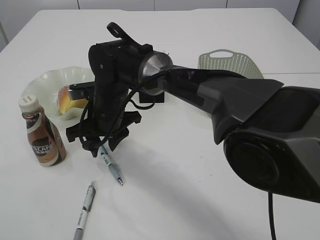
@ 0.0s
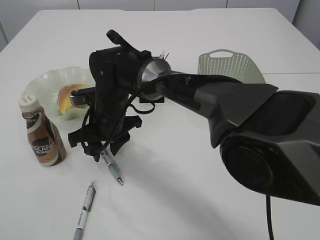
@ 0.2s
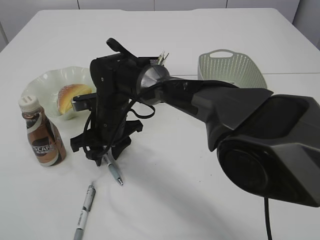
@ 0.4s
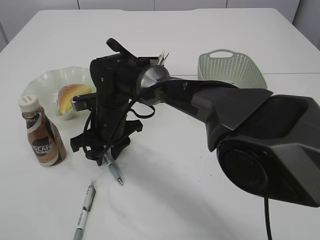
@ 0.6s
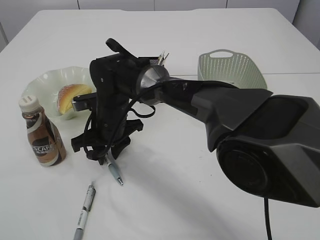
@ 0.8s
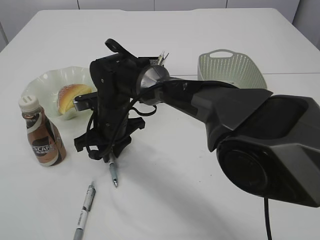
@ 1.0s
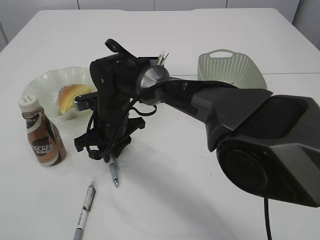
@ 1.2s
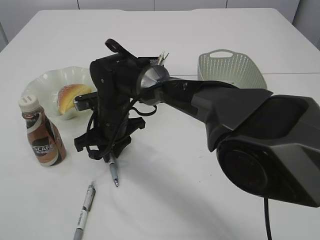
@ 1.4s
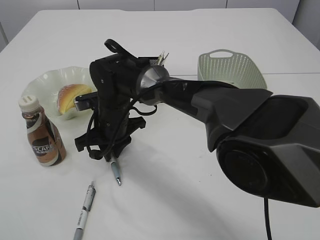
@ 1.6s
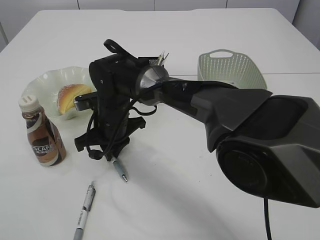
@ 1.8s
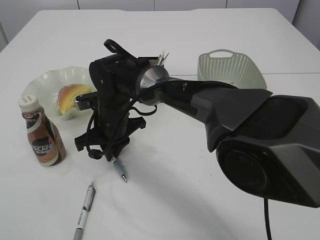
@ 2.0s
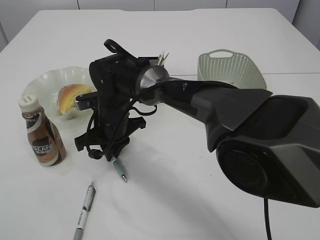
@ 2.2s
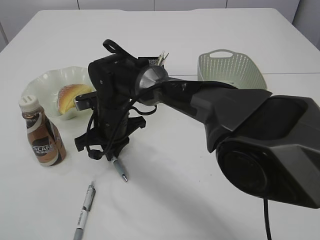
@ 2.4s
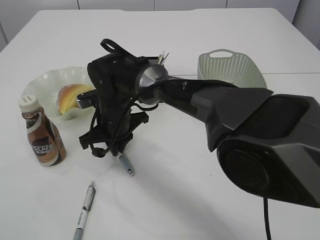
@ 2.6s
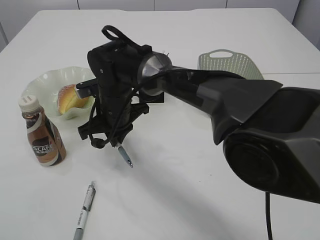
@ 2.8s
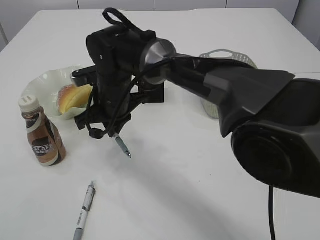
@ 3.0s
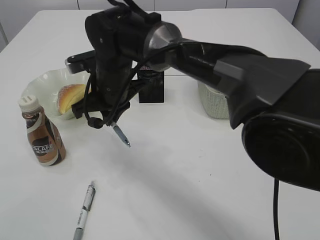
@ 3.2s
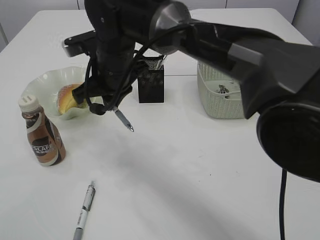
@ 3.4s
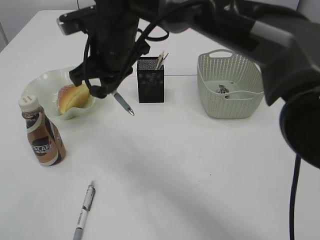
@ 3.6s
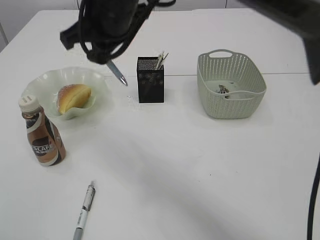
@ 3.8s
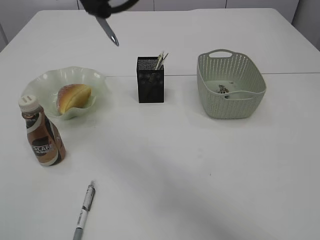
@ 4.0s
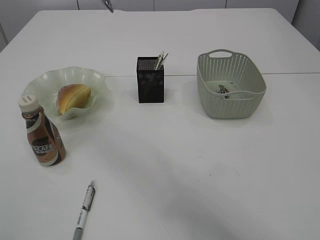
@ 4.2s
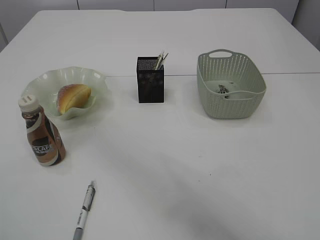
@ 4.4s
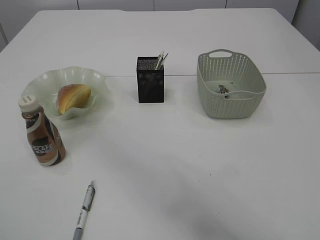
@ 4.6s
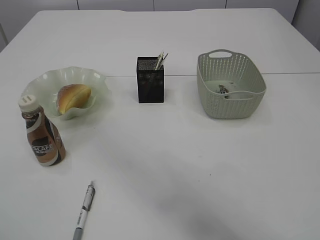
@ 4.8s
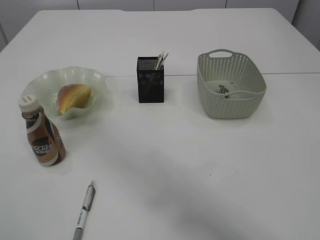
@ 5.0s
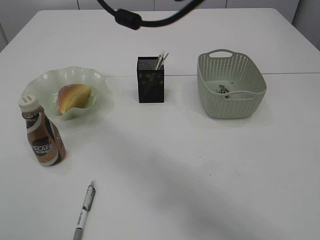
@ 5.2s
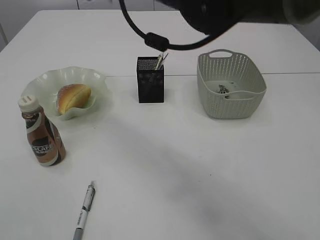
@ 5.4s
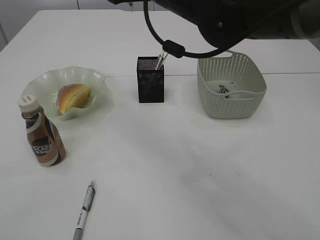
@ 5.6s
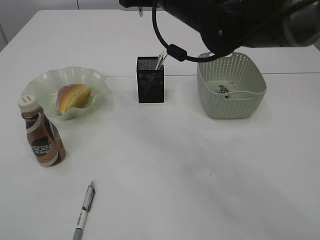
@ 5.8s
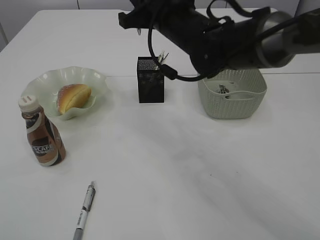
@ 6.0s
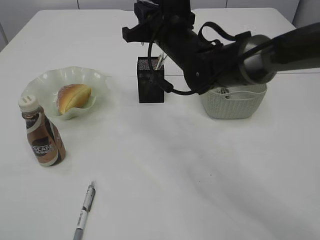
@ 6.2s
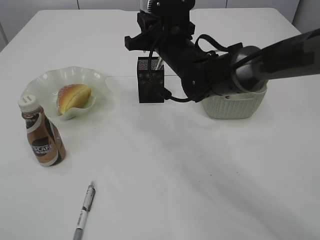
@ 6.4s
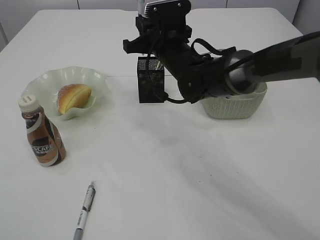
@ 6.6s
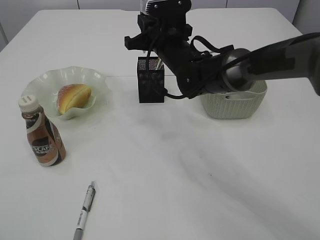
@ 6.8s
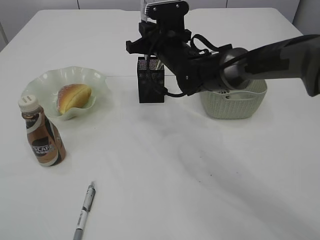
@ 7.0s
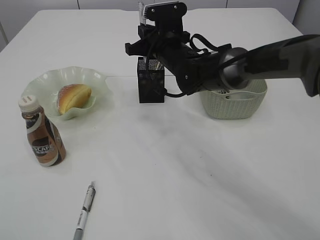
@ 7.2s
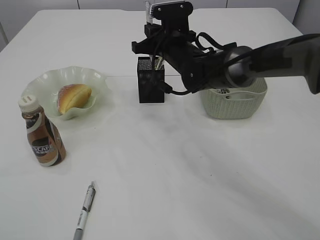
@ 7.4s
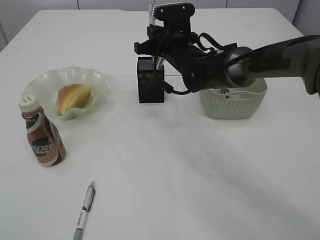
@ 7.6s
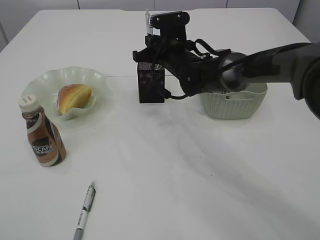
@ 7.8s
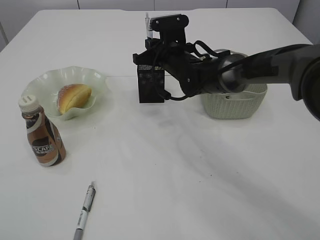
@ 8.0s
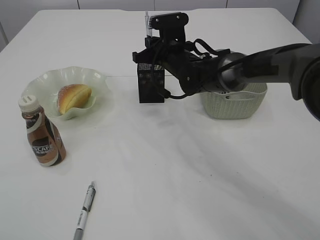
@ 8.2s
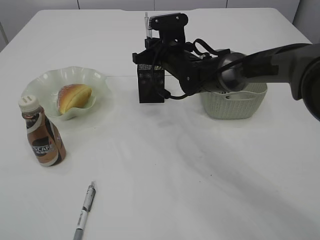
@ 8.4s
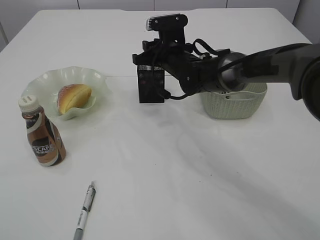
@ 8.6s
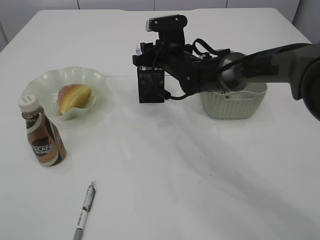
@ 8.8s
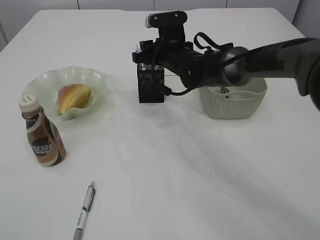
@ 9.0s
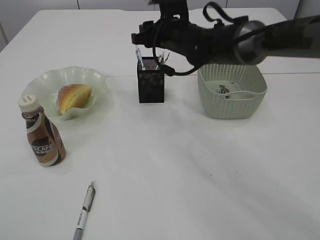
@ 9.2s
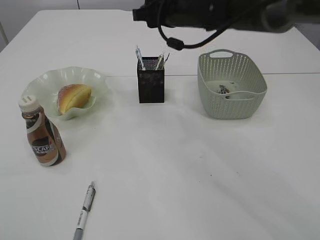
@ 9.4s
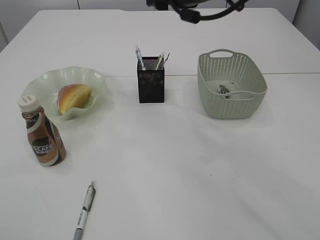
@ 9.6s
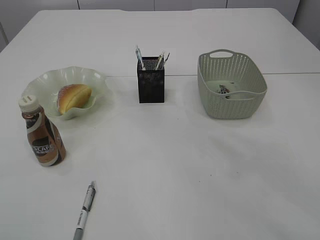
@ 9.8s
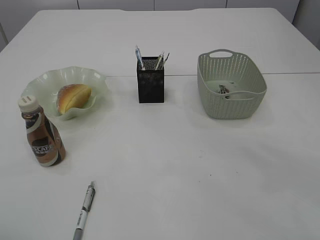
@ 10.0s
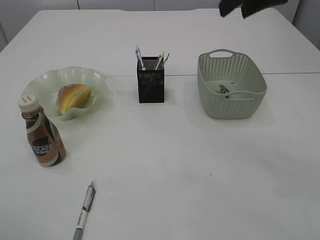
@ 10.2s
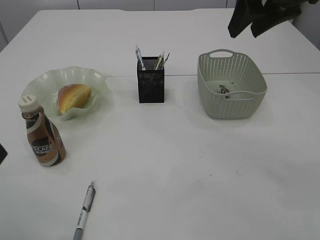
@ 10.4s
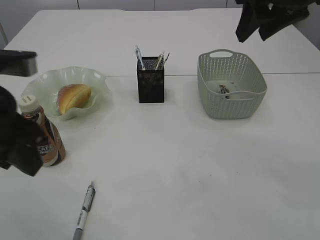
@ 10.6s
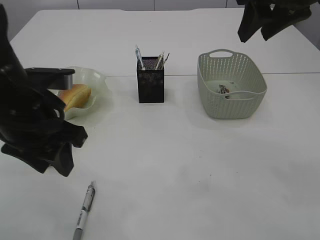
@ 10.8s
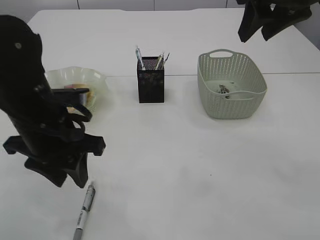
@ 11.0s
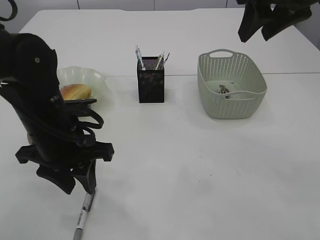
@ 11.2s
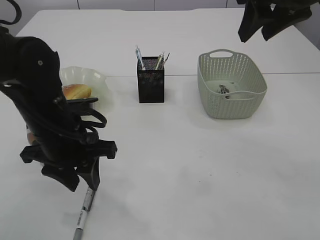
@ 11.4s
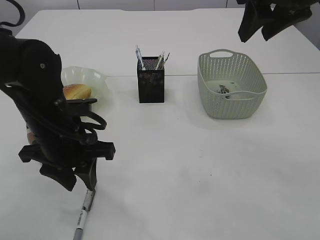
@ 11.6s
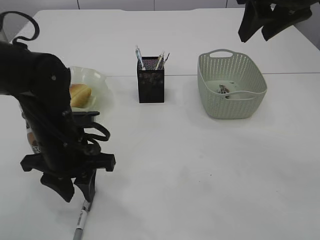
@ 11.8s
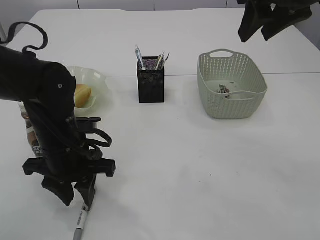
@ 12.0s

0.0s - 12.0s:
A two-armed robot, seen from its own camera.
Step, 0.0s - 3.0s: Pick up the pen with right arm.
Step, 3.2s - 9.2s: Place the pen into the pen holder.
0.0s - 1.6s: The grippers make only small movements.
3.0s - 4.4s: The right gripper heads upward, covering some 25 cm.
4.4s - 6.0s: The right gripper goes about 20 cm downward, forward and to the right.
6.0s - 7.6s: The right gripper heads downward and forward, covering approximately 10 cm.
7.6s - 9.0s: The right gripper opens its fingers.
9.0s - 10.4s: The right gripper goes about 30 cm upward, backward and to the right. Meanwhile the left gripper shifts roughly 10 cm forward and to the right.
10.4s - 12.0s: The left gripper shifts about 20 cm downward, forward and to the right.

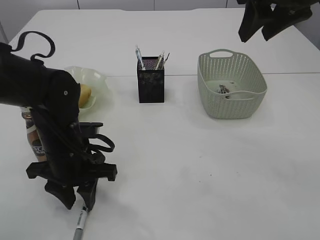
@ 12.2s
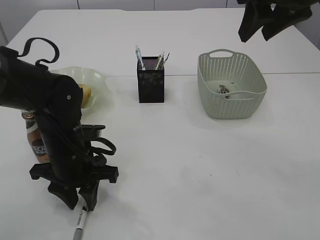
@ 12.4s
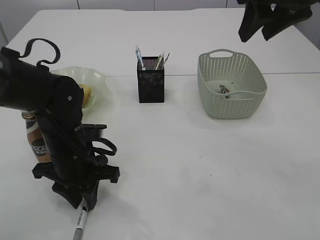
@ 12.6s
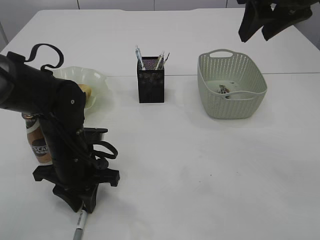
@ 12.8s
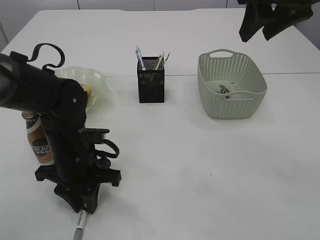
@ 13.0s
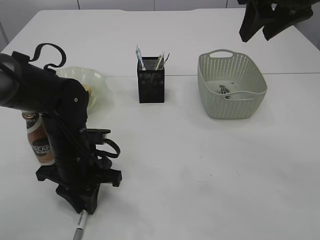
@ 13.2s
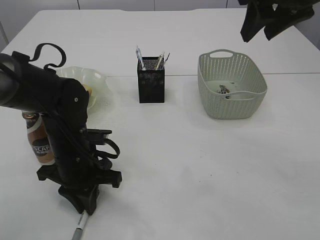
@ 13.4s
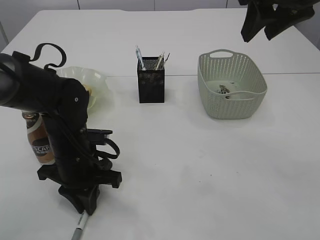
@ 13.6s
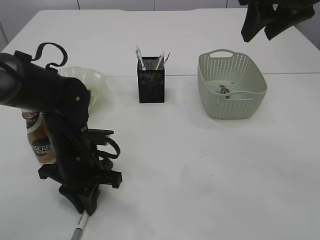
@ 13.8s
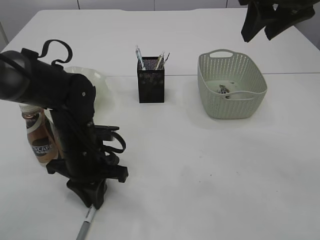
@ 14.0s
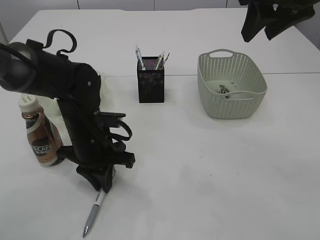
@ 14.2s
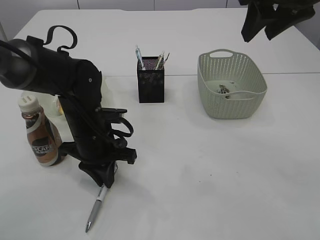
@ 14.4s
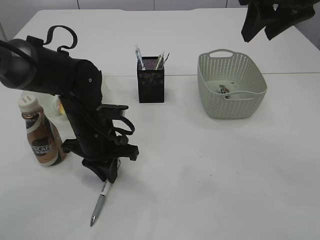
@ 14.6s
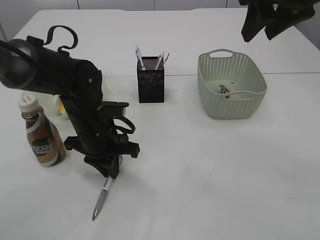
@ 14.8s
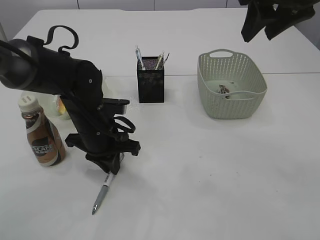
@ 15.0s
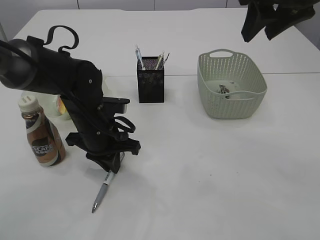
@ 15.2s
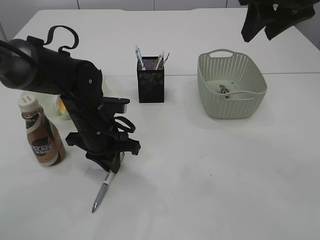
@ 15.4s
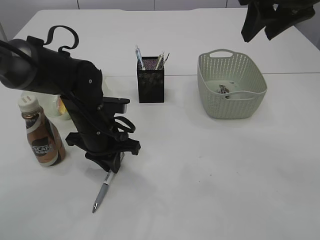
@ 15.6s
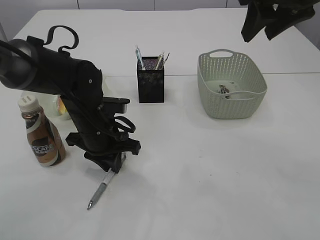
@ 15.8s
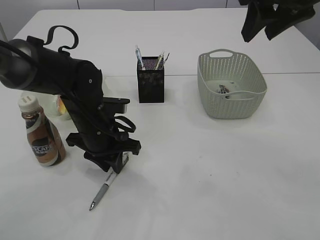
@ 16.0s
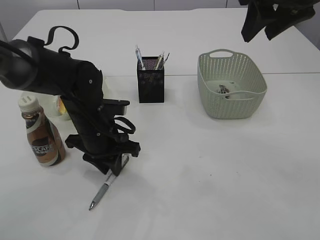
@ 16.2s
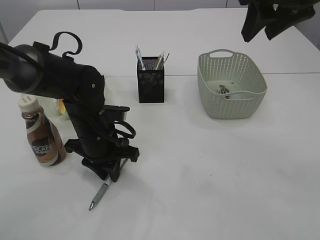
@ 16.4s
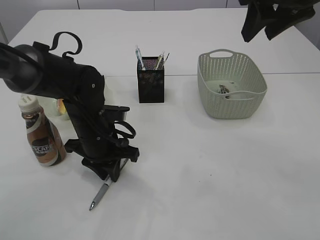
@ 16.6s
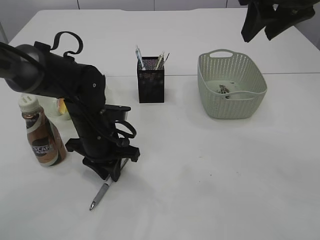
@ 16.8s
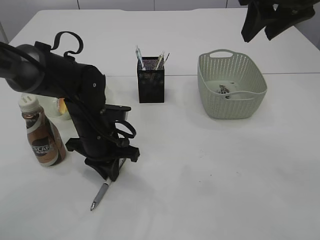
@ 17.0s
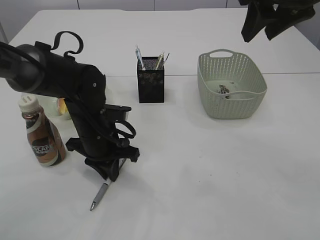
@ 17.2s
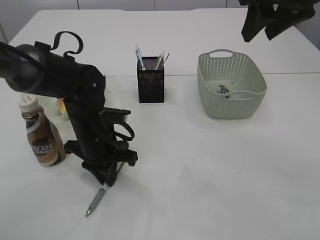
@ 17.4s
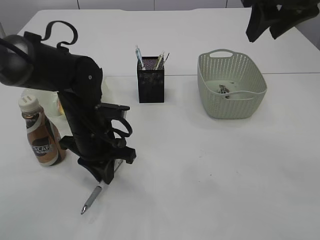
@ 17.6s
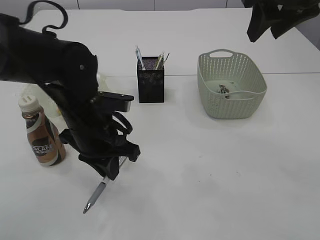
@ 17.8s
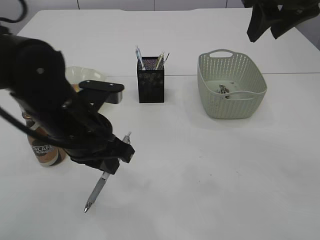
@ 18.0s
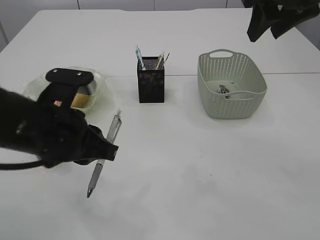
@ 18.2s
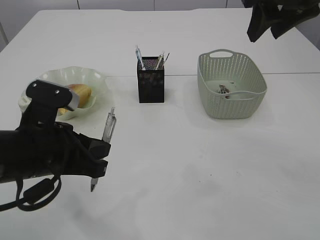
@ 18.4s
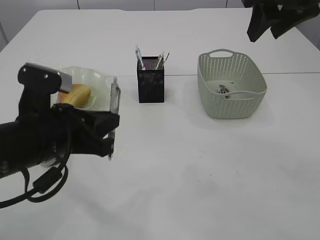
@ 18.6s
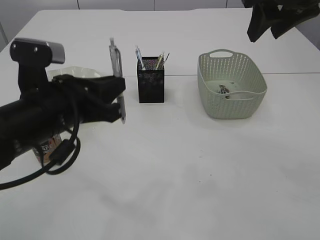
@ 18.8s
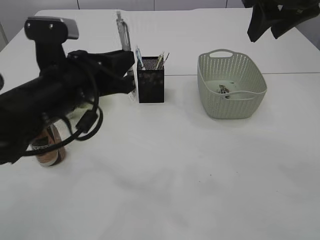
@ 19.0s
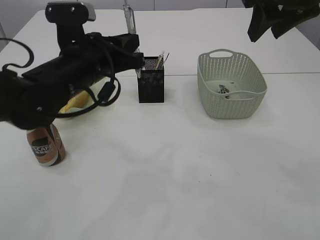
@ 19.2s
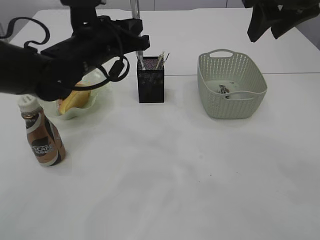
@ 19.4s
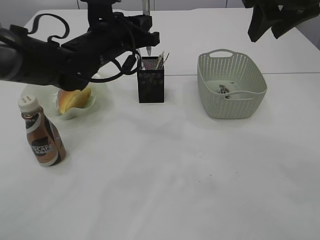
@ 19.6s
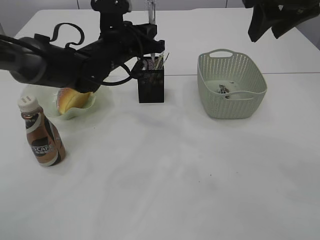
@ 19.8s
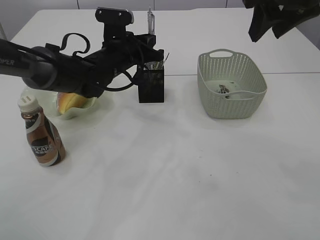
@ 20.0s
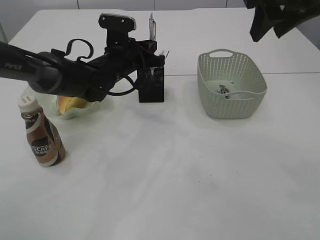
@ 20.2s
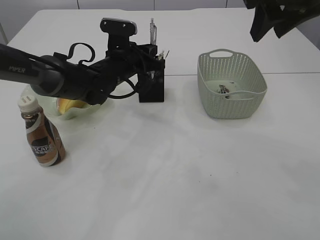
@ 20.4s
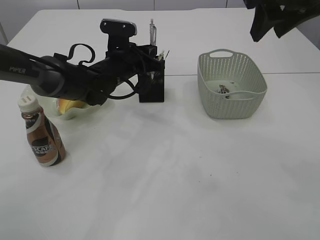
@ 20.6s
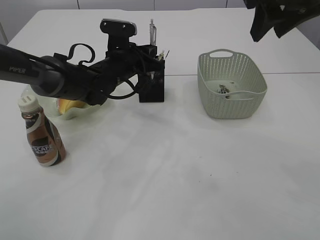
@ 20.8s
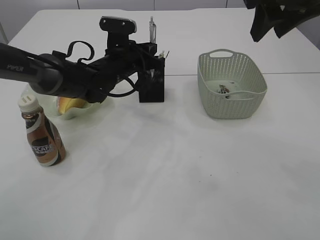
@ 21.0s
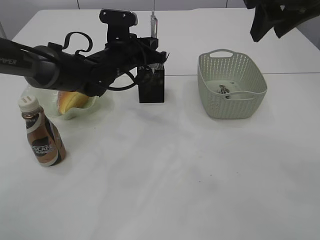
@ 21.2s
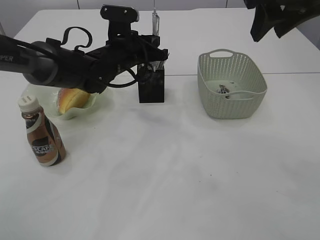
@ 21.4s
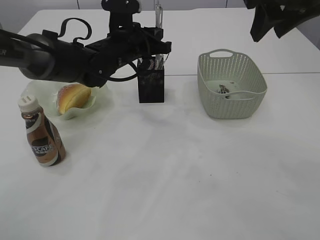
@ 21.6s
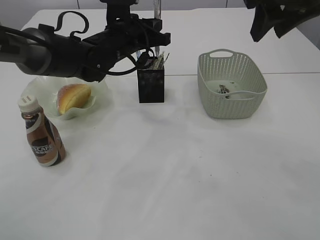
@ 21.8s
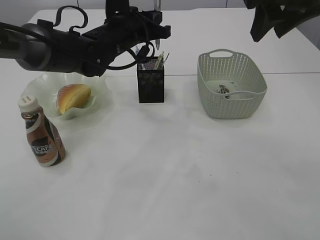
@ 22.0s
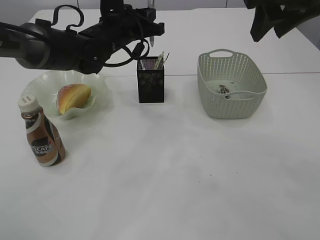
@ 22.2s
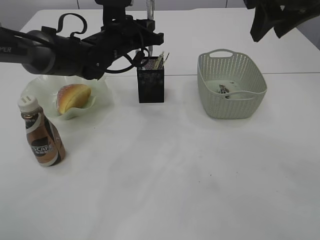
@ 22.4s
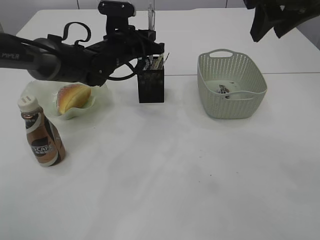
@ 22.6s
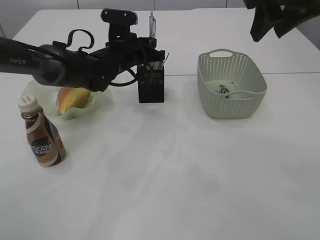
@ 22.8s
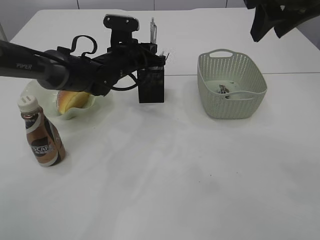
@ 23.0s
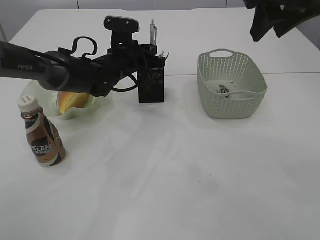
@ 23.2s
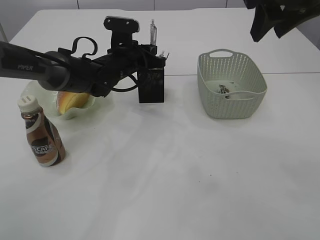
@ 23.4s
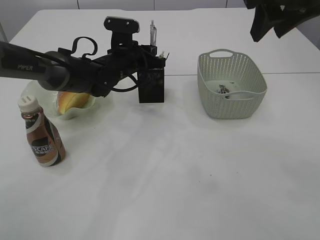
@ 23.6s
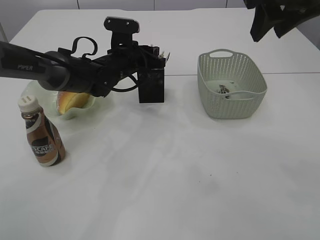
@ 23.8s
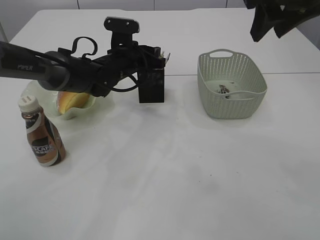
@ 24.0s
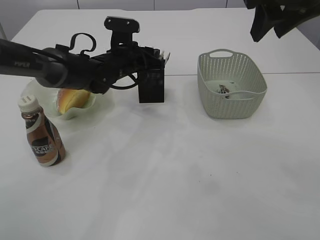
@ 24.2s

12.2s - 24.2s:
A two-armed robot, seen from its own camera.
Step, 12.2s - 18.0s: Pick up the pen with left arm.
12.2s - 13.8s: The left gripper closes.
13.8s - 15.2s: The left gripper moves approximately 5 cm.
15.2s - 16.6s: The two grippers keep their place.
16.6s - 18.2s: The left gripper is displaced upward and backward by roughly 15 cm.
18.2s - 19.8s: The left gripper moves forward, about 20 cm.
19.8s - 22.6s: The grippers stay close to where they were, moving slightly.
22.6s - 24.2s: The left gripper opens its fingers.
